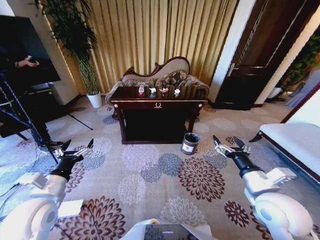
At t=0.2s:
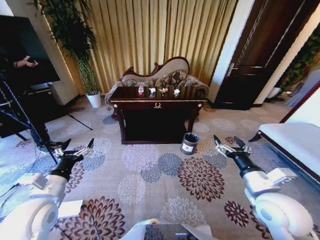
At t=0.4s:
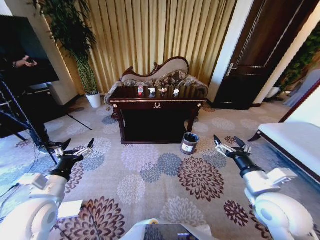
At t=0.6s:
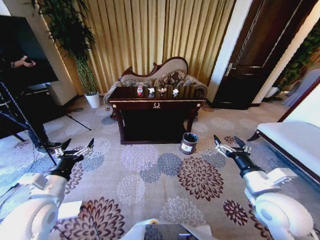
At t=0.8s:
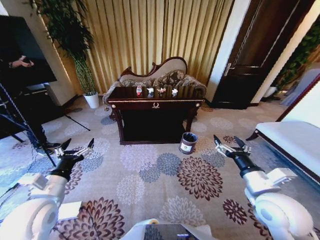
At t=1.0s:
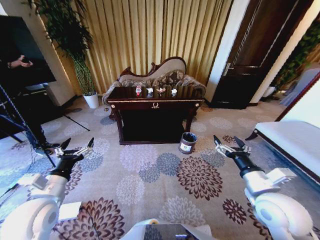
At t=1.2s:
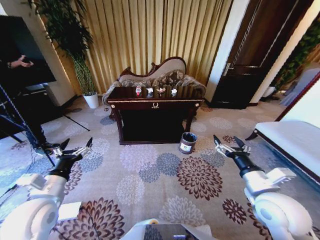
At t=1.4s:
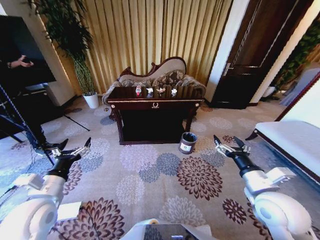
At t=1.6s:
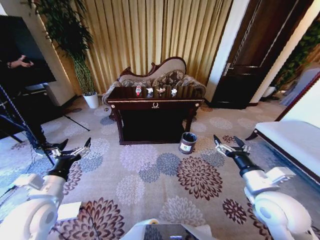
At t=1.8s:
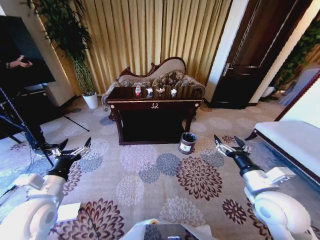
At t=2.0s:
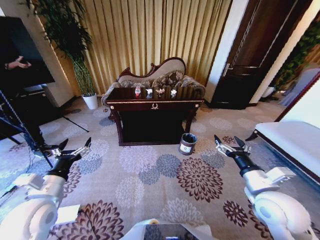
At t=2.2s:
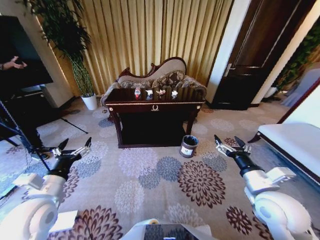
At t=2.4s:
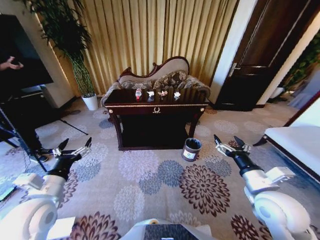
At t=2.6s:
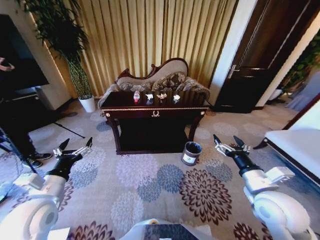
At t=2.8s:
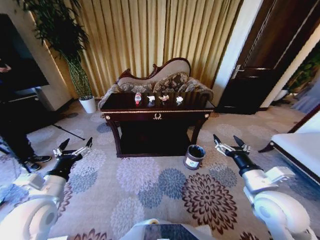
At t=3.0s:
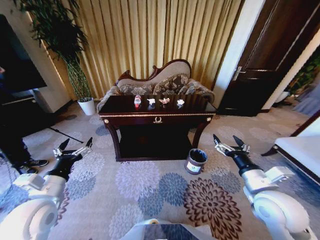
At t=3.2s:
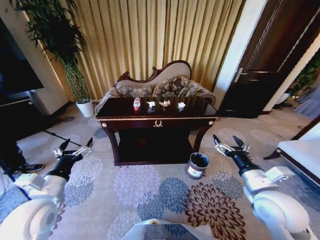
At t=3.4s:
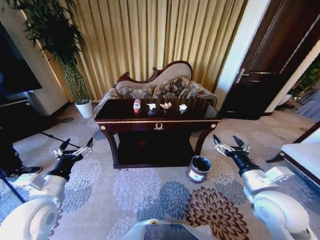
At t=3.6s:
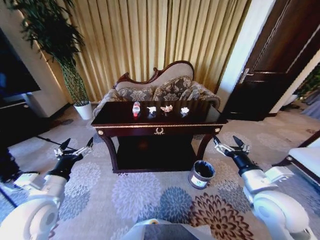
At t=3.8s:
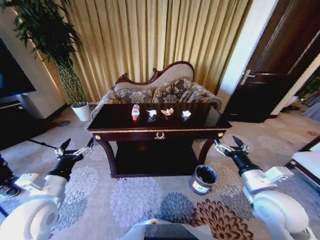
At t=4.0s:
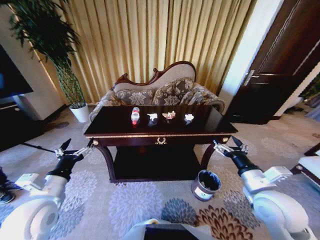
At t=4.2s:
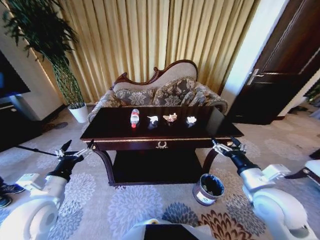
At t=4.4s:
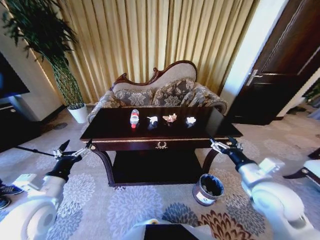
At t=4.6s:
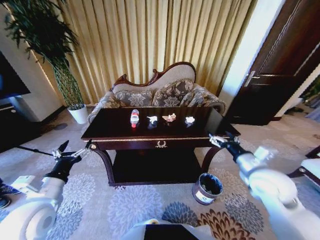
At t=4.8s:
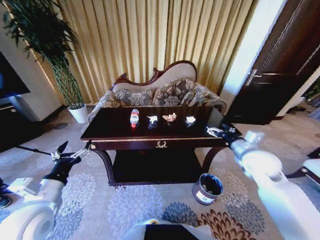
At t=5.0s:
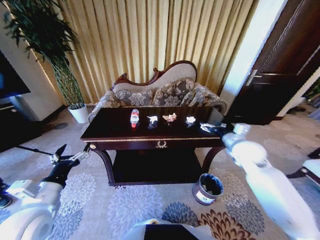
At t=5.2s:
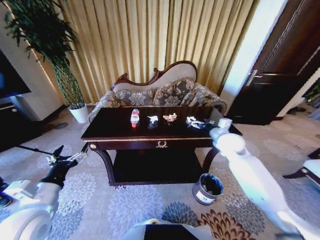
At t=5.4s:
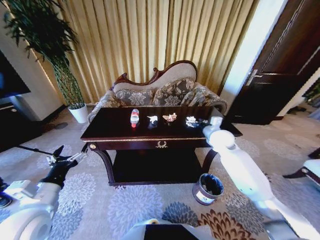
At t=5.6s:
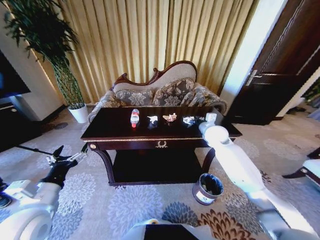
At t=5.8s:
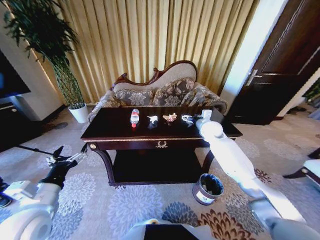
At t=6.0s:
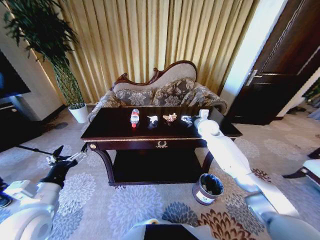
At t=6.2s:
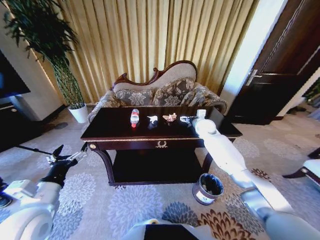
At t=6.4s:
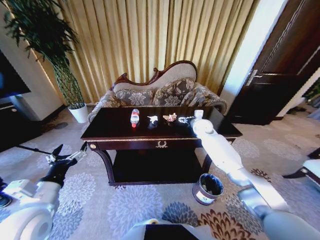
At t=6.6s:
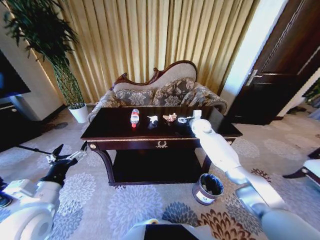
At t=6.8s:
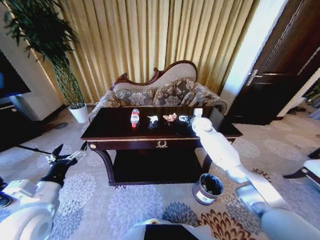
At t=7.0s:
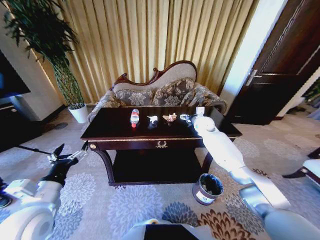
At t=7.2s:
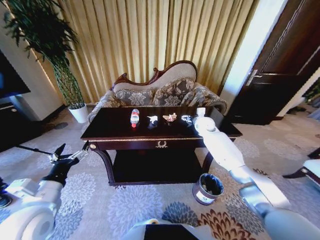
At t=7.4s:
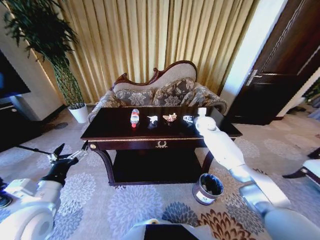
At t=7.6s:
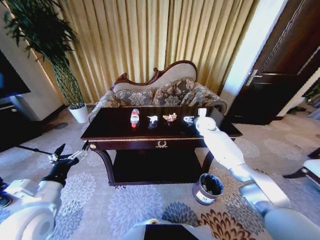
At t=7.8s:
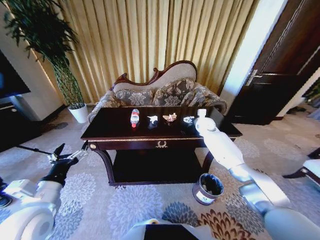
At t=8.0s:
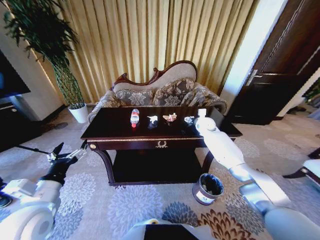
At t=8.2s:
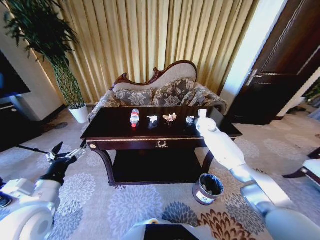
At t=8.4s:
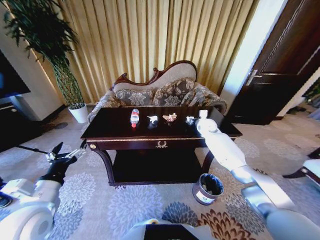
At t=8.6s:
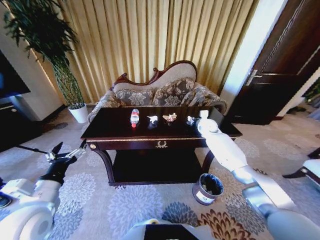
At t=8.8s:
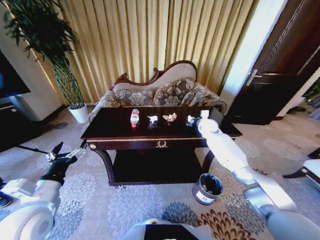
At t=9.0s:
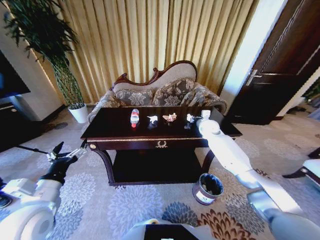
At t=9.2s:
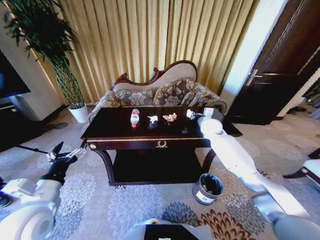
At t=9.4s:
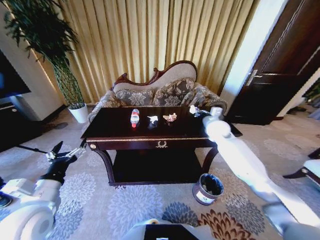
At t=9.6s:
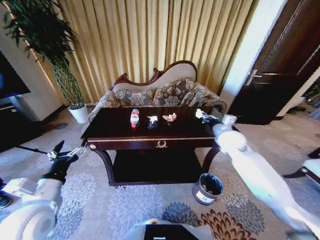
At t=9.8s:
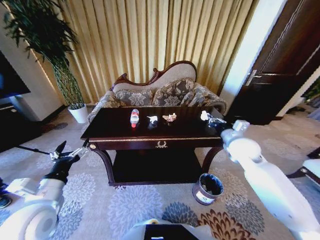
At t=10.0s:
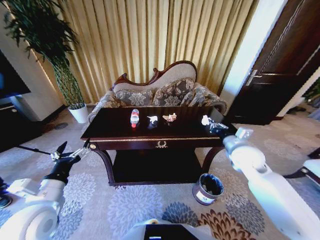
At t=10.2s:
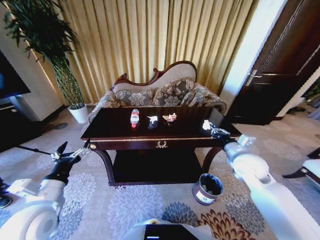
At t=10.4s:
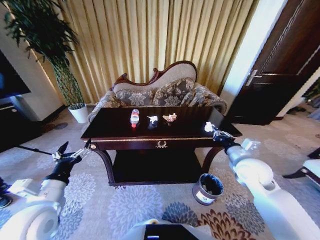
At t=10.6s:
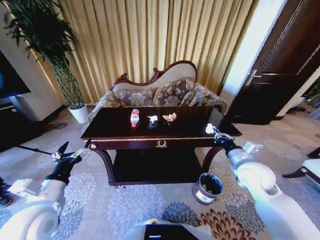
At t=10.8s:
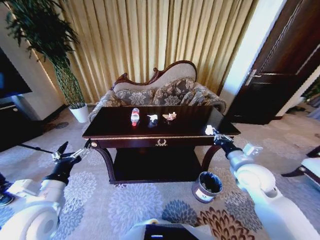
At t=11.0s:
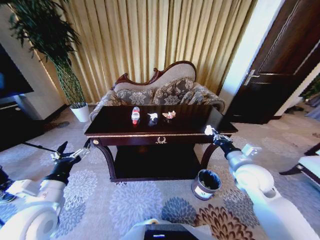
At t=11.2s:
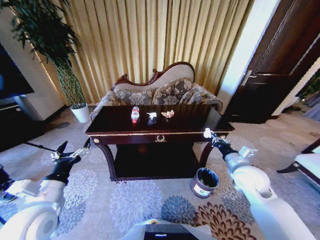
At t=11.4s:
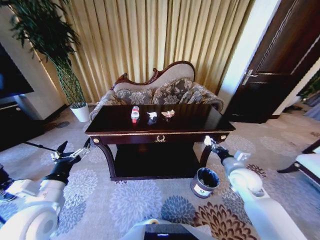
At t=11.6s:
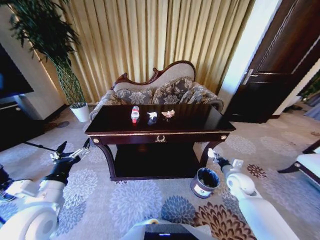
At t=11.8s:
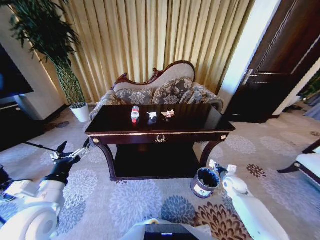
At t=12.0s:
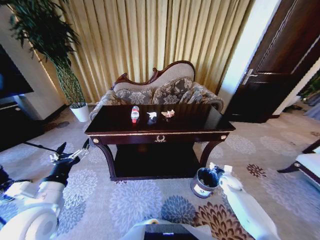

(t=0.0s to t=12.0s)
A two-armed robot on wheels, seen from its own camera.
Task of the whole recording: Move to the front of the table and place the trash on the table into the trash bin.
t=4.4s - t=6.0s: The right gripper is displaced forward by approximately 35 cm.
t=6.0s - t=7.6s: The grippers make only small movements.
t=7.6s - t=9.0s: The right gripper closes.
t=9.0s - t=10.4s: The right gripper heads backward, covering about 25 cm.
t=10.4s - t=12.0s: The right gripper moves downward, roughly 25 cm.

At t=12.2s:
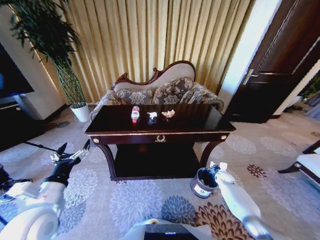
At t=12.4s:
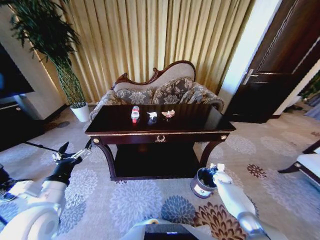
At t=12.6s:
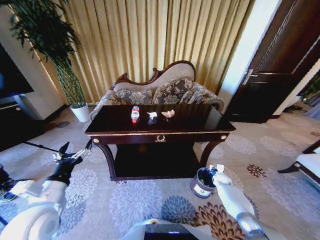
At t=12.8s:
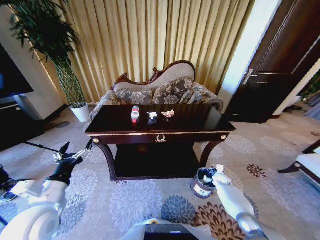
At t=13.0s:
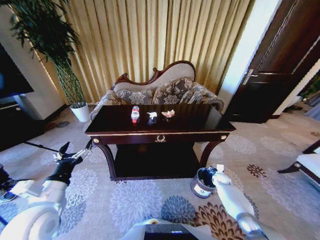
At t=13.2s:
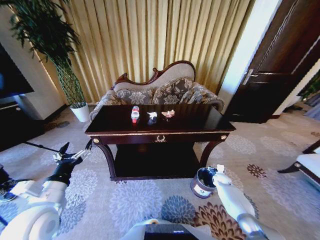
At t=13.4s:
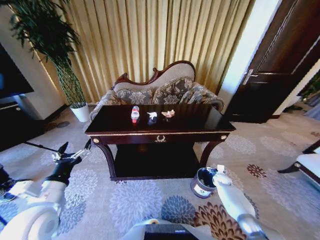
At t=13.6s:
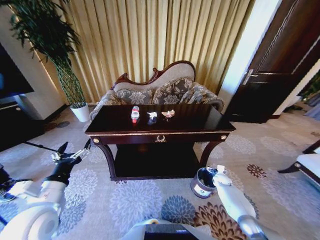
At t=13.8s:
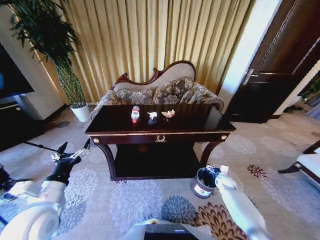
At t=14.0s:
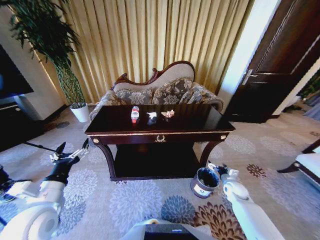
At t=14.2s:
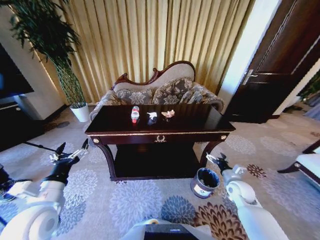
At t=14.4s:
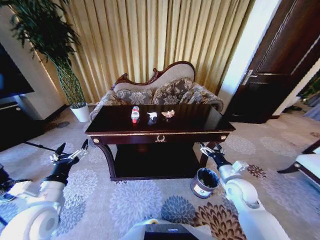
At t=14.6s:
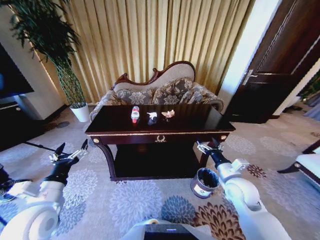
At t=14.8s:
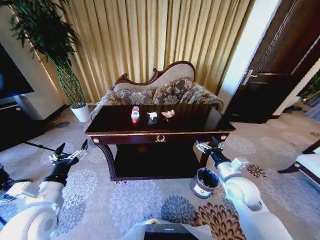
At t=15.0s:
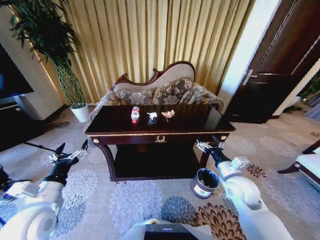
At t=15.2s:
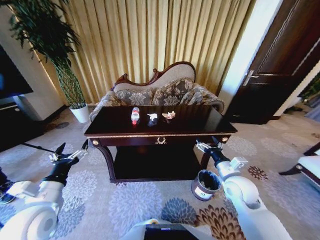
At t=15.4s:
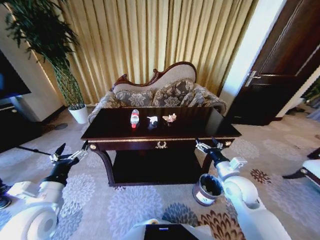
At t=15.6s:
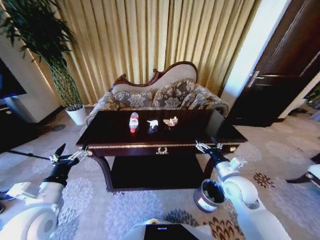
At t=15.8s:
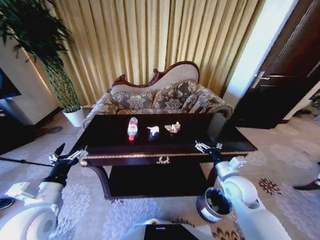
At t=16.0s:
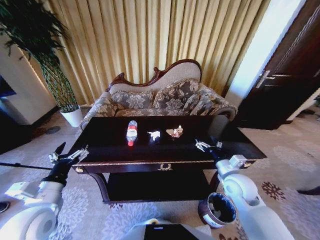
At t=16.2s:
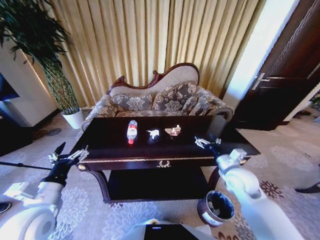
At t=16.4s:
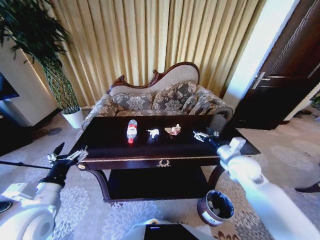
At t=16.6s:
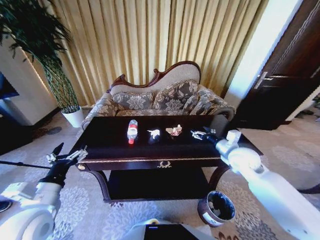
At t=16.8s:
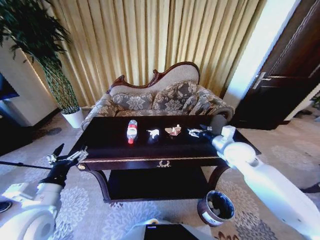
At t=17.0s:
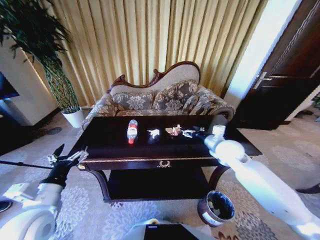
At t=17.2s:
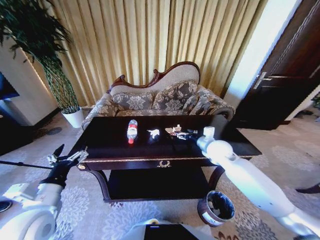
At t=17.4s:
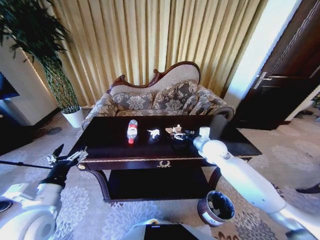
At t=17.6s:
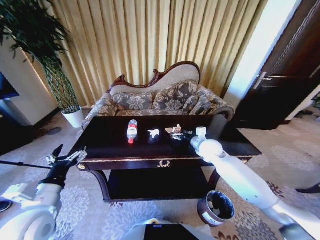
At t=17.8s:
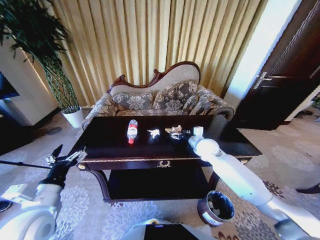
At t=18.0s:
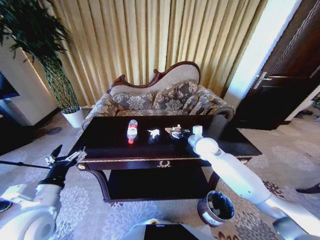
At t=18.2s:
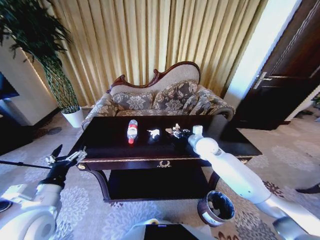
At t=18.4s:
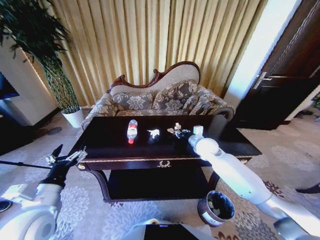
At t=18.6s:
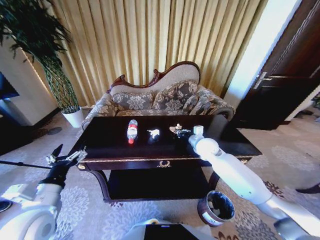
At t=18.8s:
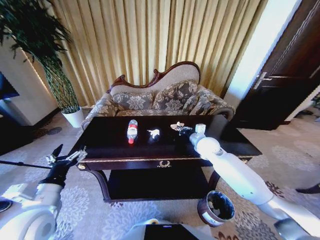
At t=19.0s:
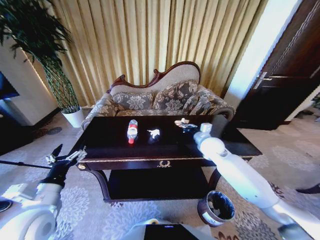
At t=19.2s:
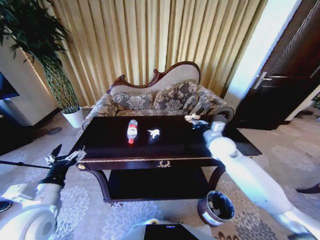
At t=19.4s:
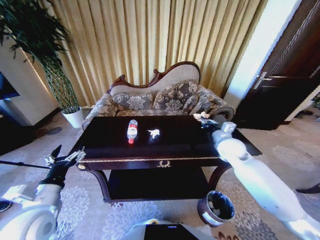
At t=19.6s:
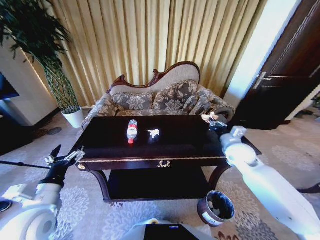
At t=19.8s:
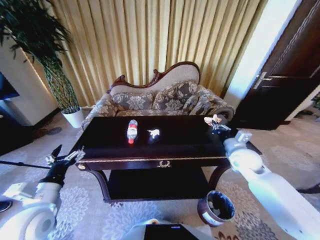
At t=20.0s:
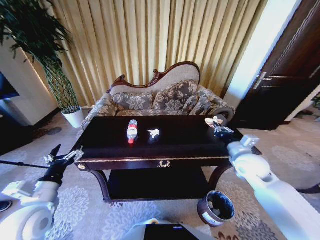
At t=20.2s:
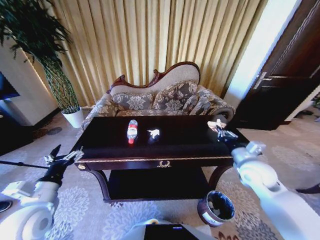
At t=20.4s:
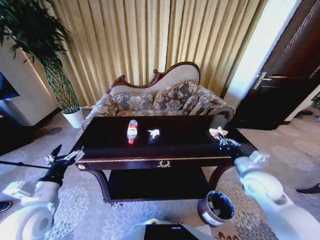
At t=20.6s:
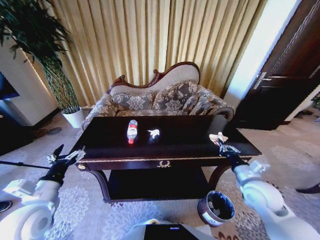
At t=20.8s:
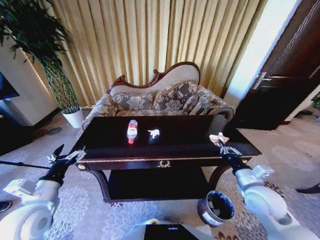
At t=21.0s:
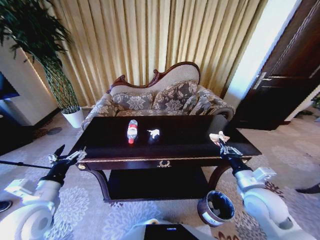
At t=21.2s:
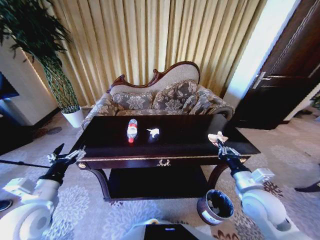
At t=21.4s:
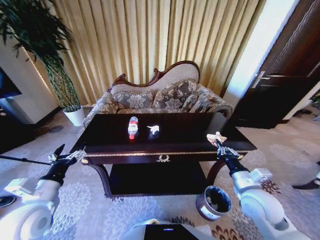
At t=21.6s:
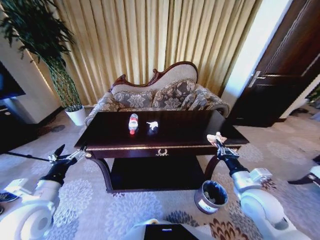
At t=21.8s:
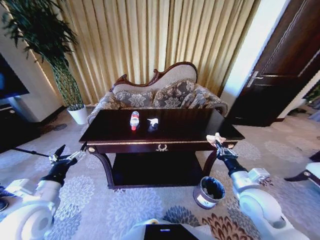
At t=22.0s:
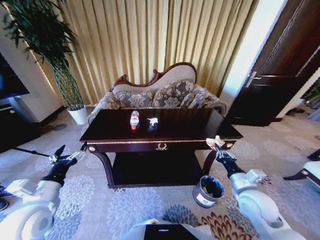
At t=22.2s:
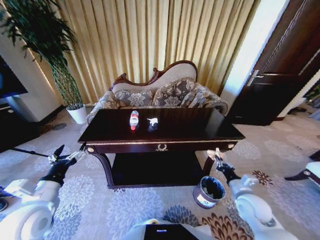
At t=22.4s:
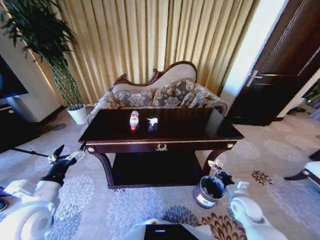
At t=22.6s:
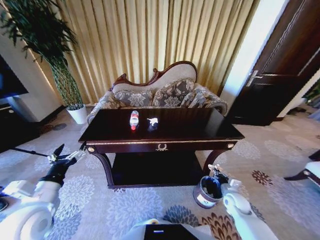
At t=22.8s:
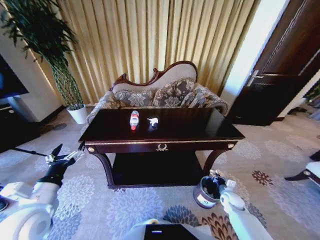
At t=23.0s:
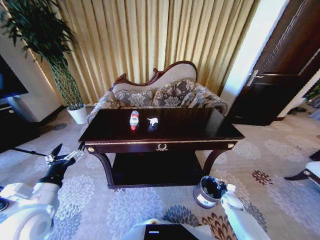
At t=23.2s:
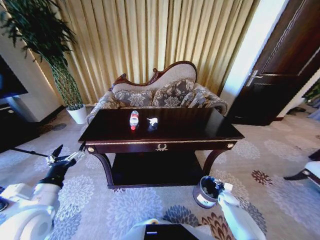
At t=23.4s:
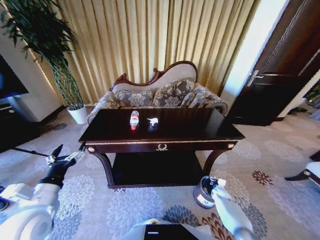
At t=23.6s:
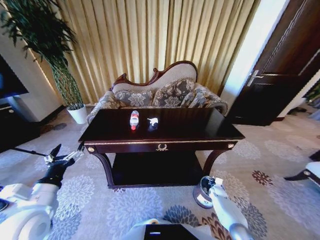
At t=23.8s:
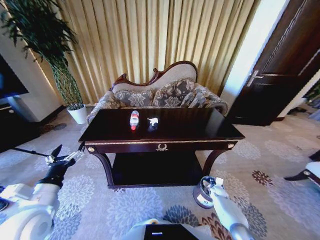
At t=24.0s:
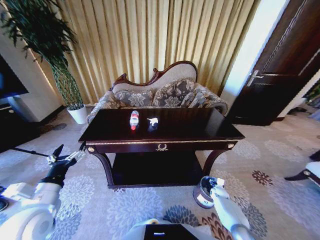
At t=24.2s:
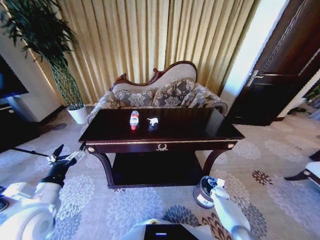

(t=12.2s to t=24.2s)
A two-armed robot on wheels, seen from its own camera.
Task of the whole recording: Move to the front of the table and place the trash on the table into the trash bin.
t=12.2s - t=13.8s: The right gripper opens up.
t=13.8s - t=15.2s: The right gripper travels upward and to the left by roughly 25 cm.
t=15.2s - t=16.6s: The right gripper is displaced forward and upward by approximately 10 cm.
t=16.6s - t=18.2s: The right gripper heads forward and to the left, covering roughly 15 cm, and closes its fingers.
t=18.2s - t=19.8s: The right gripper goes roughly 15 cm to the right and backward, and closes.
t=19.8s - t=21.2s: The right gripper travels backward by some 15 cm.
t=21.2s - t=22.6s: The right gripper goes about 20 cm downward.
t=22.6s - t=24.2s: The right gripper shifts approximately 15 cm downward and forward, and opens its fingers.
